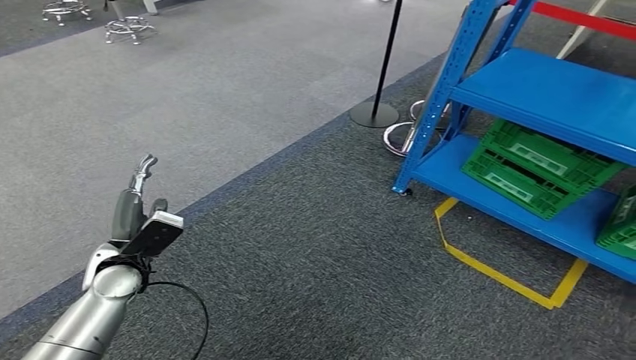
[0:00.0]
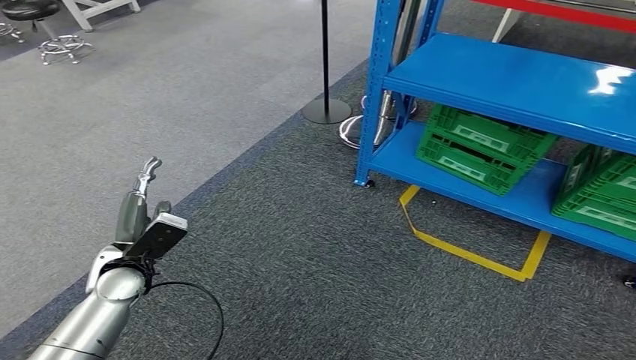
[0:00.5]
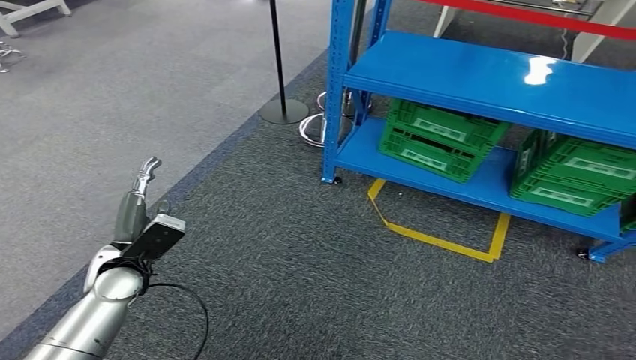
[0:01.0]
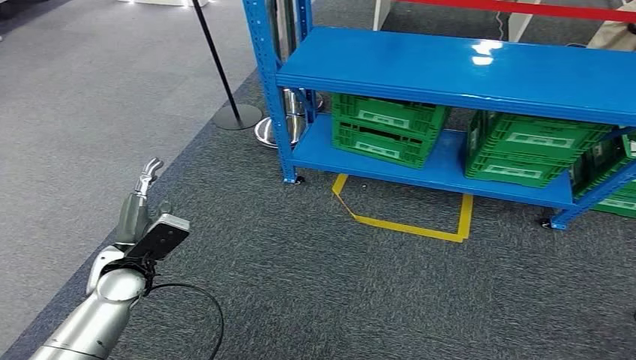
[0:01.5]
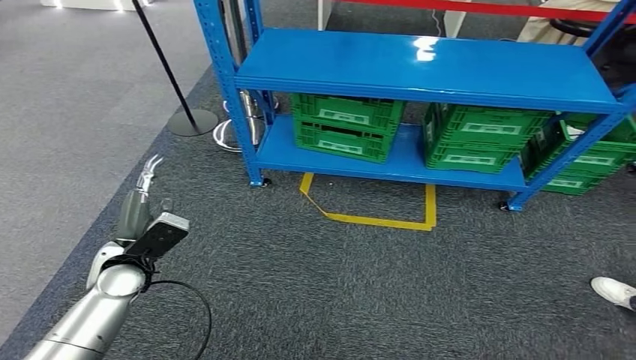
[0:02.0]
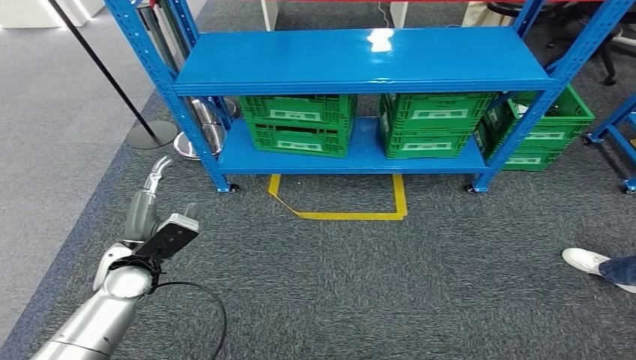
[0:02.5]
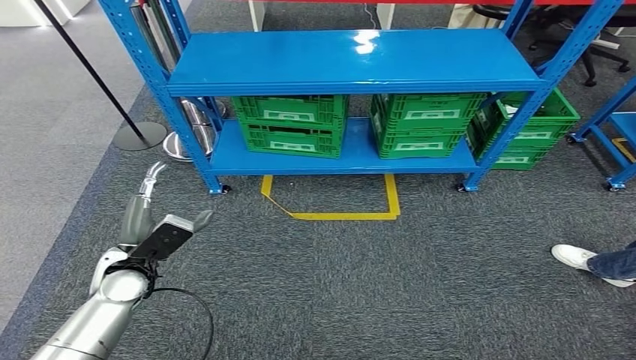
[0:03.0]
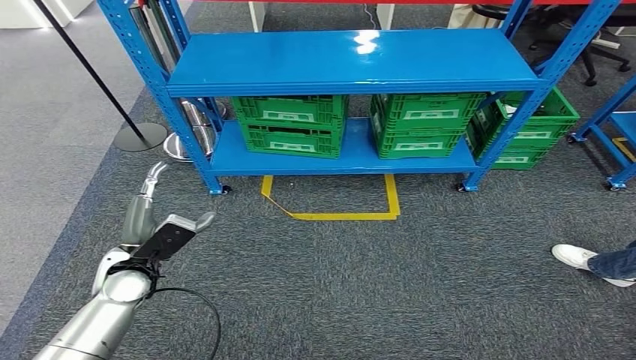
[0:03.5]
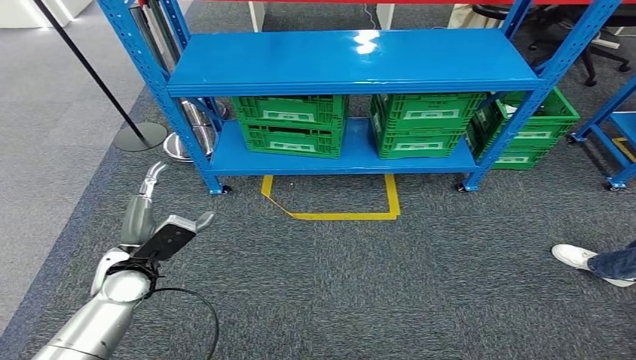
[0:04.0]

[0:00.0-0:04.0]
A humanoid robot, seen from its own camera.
Step, 0:00.0 to 0:04.0: Return to the initial position at the workbench.
